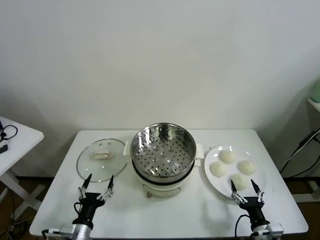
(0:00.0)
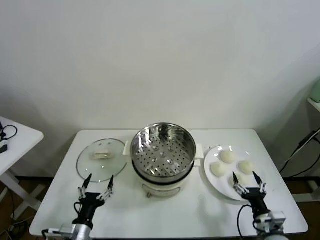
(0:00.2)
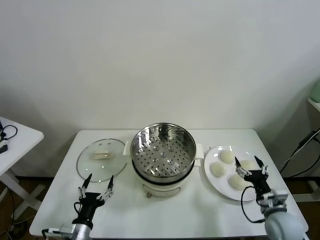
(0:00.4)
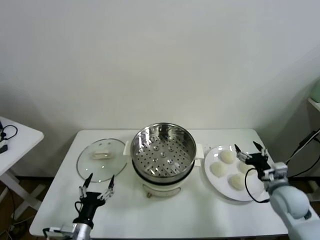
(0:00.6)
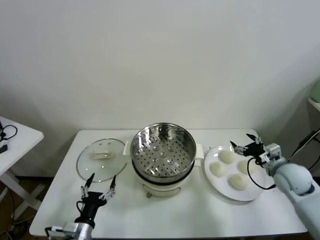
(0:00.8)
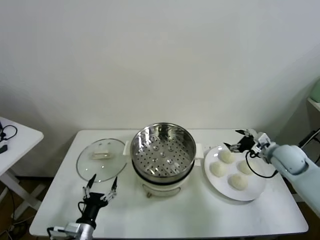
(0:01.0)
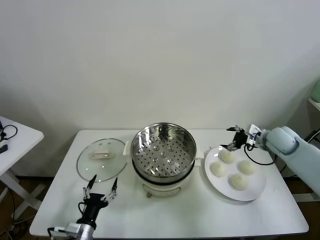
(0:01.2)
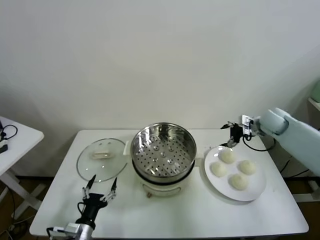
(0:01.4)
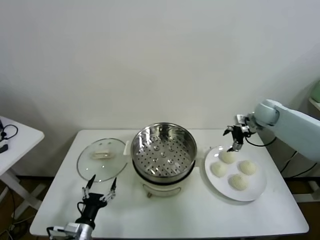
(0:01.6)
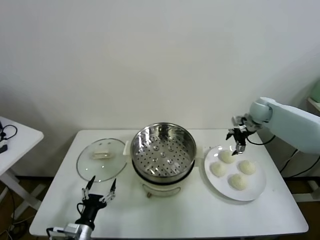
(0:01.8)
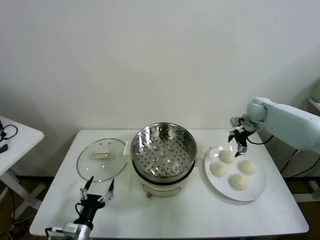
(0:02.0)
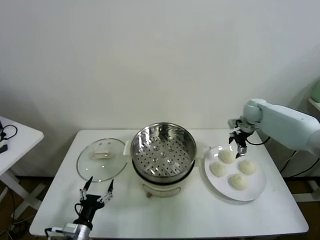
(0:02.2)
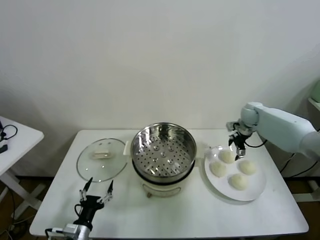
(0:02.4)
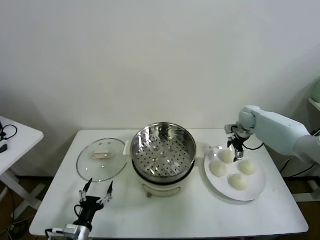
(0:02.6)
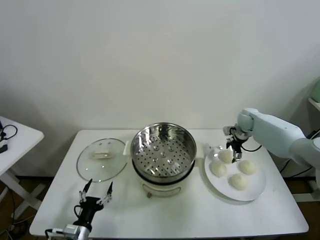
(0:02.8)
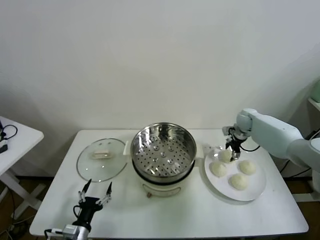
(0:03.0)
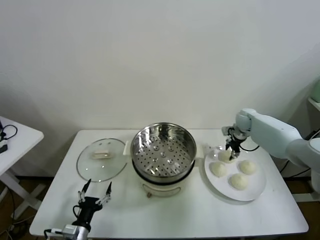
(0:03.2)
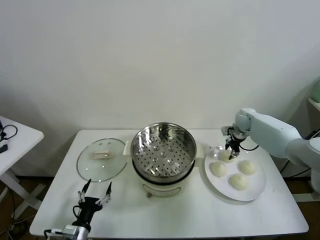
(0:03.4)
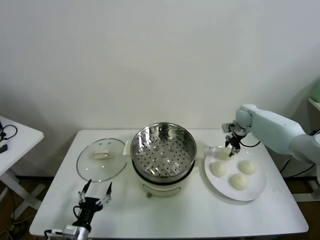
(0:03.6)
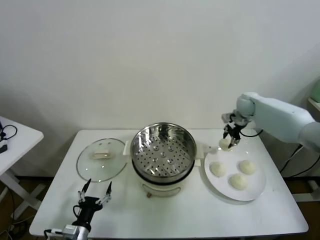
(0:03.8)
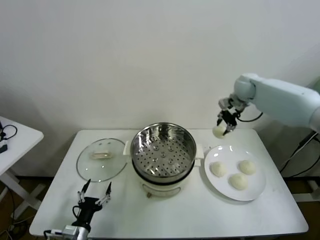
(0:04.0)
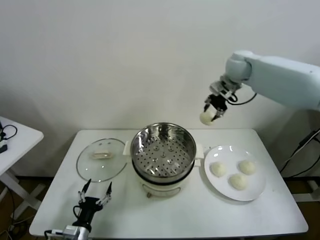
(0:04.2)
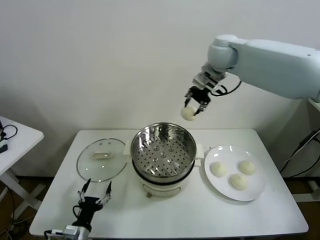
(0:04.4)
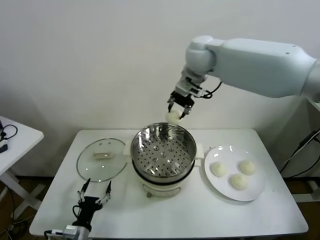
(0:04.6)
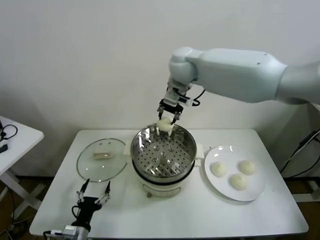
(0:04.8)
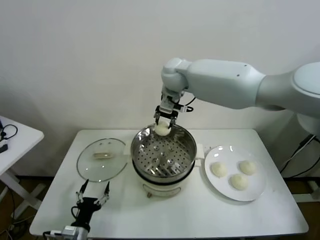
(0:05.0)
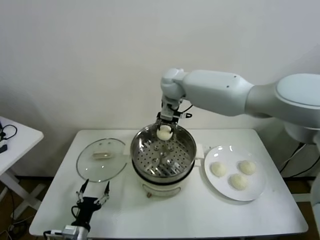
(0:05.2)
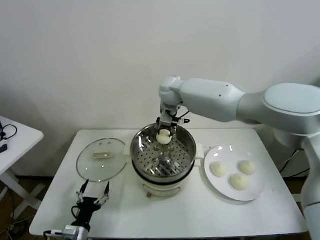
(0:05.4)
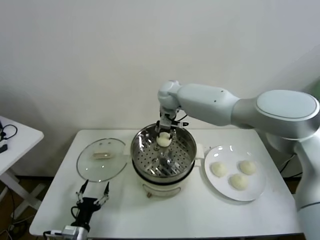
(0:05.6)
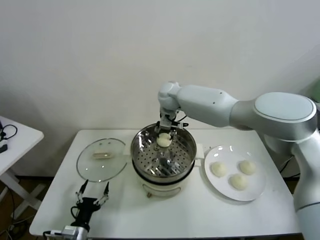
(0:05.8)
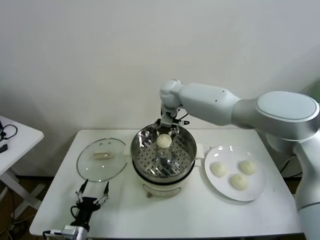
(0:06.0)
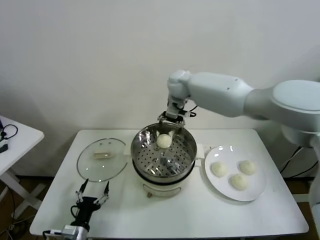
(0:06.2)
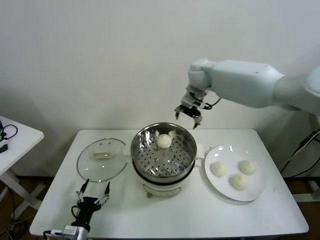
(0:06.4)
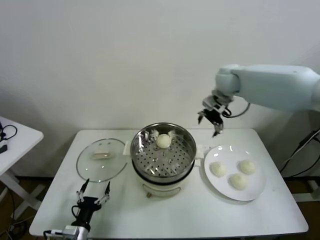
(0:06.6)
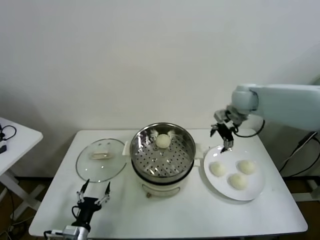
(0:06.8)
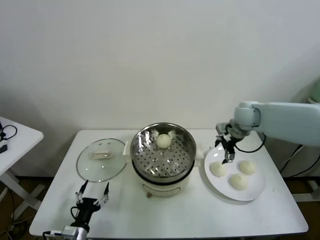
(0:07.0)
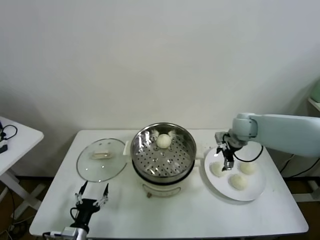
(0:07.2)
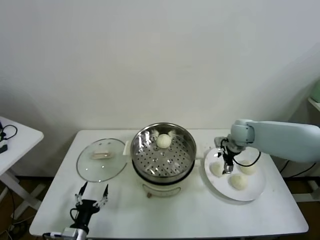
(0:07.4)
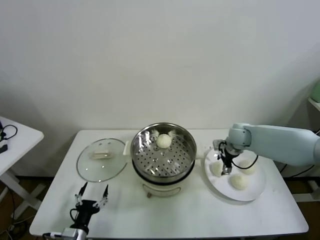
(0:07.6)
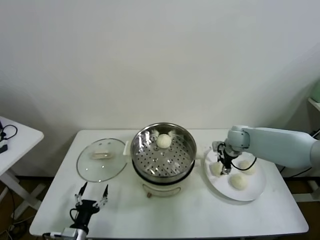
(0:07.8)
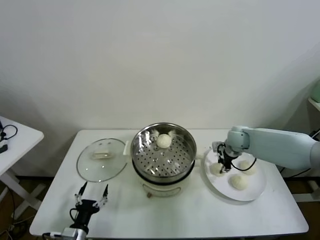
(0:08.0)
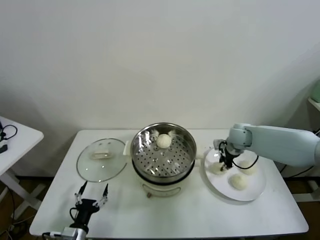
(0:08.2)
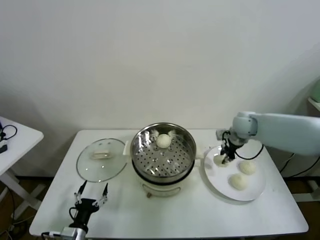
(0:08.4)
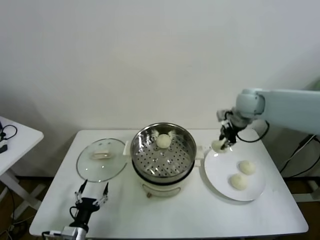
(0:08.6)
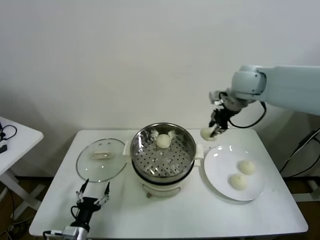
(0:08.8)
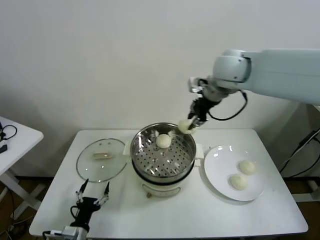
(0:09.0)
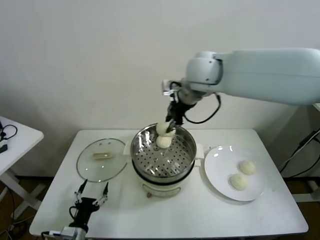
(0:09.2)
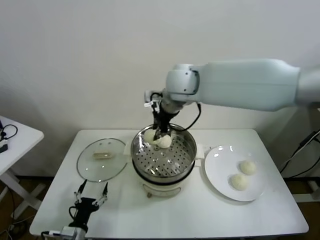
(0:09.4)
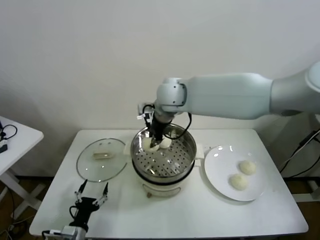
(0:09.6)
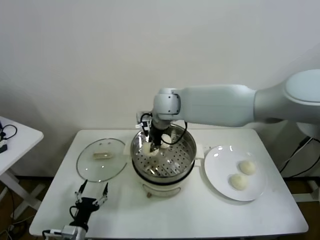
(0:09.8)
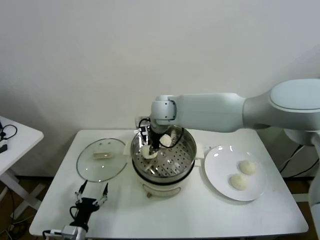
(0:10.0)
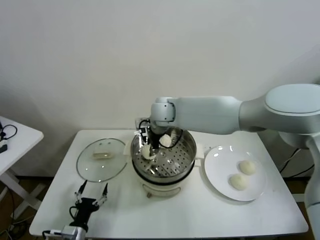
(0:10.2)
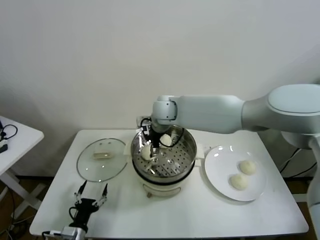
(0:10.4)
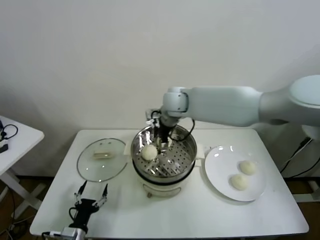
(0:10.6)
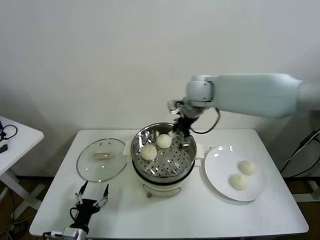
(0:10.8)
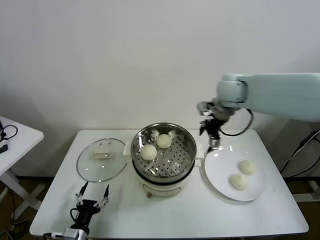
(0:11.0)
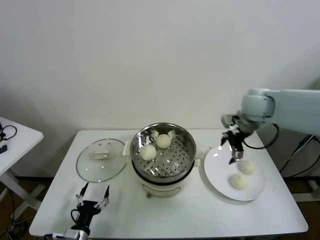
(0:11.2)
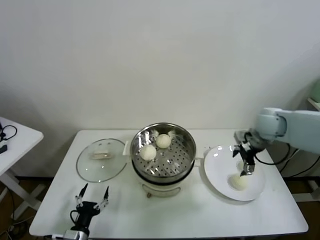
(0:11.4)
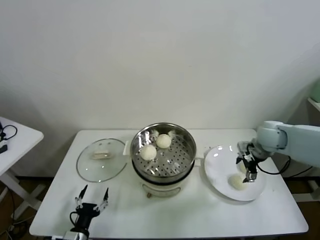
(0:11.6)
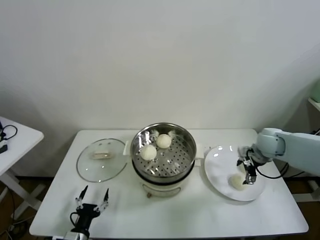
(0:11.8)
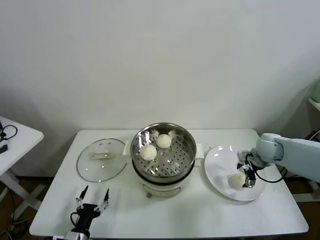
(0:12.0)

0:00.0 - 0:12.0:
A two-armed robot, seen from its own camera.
Task of the whole recording: take steamed baozi put them in steamer.
Step, 0:00.0 - 0:03.0: Grasp the baozi in the plate with right gripper.
Step, 0:03.2 - 0:05.8: Place the baozi on the steamer with right gripper.
Step, 0:06.0 - 0:07.6: Grasp the baozi in the plate with right gripper.
Step, 0:08.0 - 0:10.2: Place the baozi on the steamer with right gripper.
0:01.6 - 0:03.0: The right gripper is displaced downward by approximately 10 cm, and closes up.
0:03.0 - 0:04.4: The right gripper goes about 40 cm upward and to the left.
0:04.4 - 0:06.0: The right gripper moves downward and to the left, roughly 20 cm, and opens up.
0:06.0 - 0:07.6: The right gripper is displaced to the right and downward by some 30 cm.
0:07.6 - 0:09.0: The right gripper goes about 35 cm upward and to the left, and closes.
0:09.0 - 0:10.4: The right gripper travels downward and to the left by roughly 20 cm, and opens up.
0:10.4 - 0:12.0: The right gripper heads to the right, covering about 35 cm.

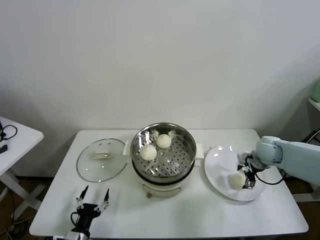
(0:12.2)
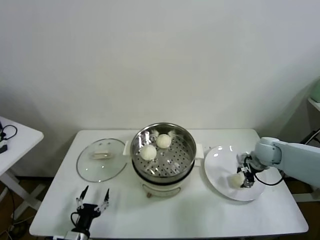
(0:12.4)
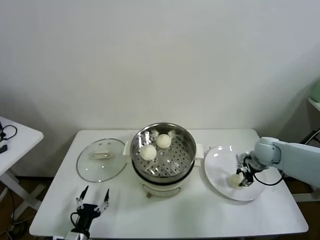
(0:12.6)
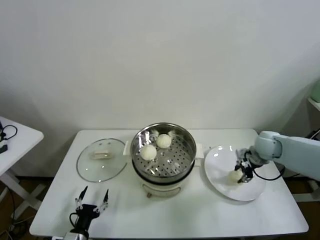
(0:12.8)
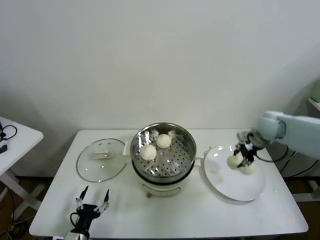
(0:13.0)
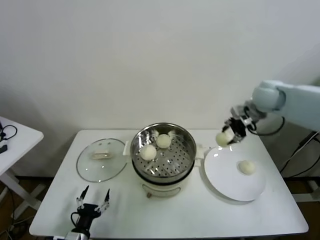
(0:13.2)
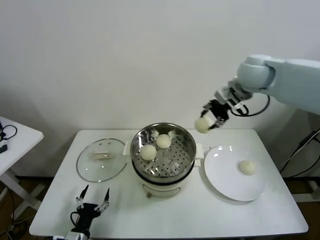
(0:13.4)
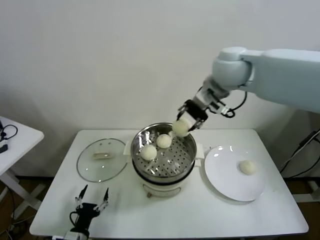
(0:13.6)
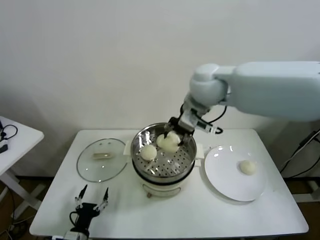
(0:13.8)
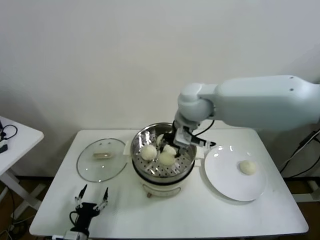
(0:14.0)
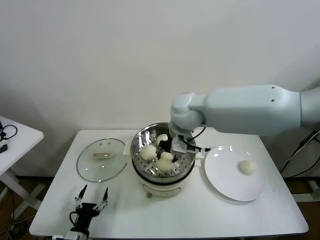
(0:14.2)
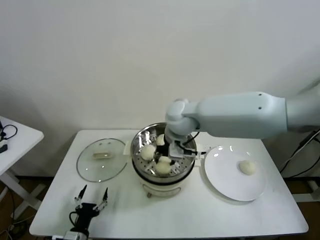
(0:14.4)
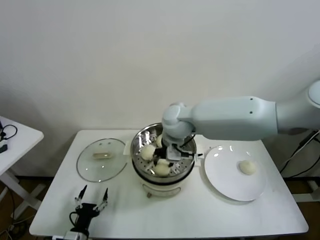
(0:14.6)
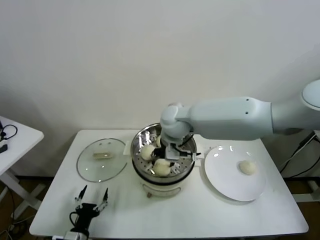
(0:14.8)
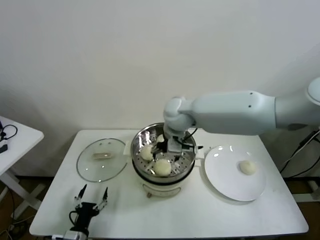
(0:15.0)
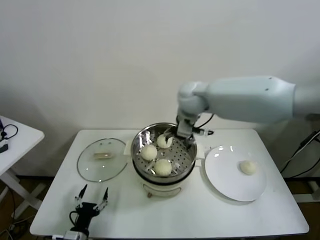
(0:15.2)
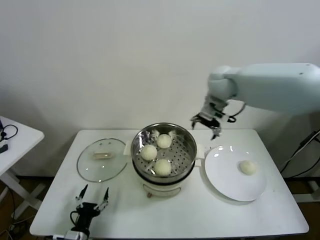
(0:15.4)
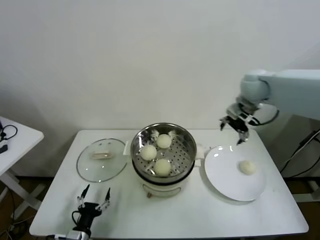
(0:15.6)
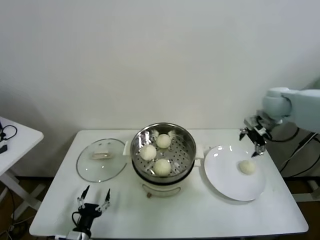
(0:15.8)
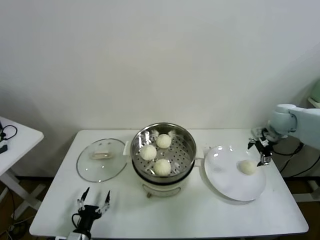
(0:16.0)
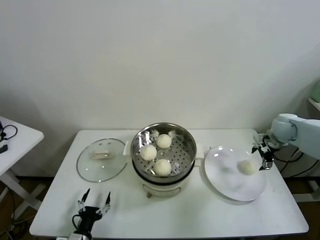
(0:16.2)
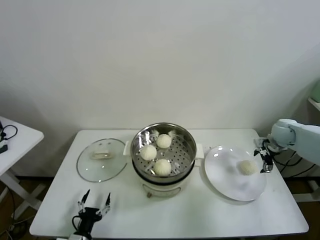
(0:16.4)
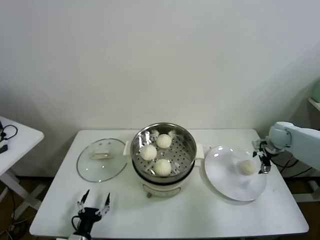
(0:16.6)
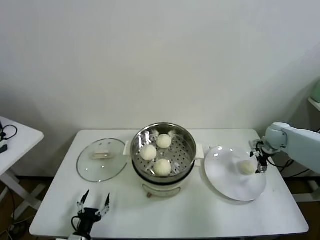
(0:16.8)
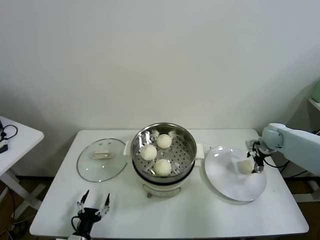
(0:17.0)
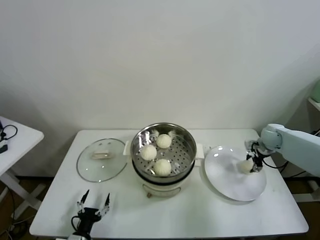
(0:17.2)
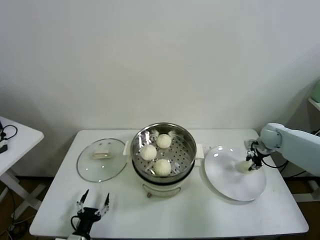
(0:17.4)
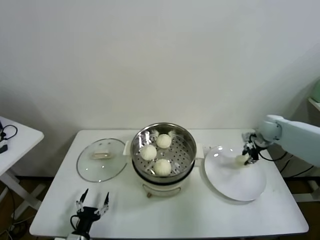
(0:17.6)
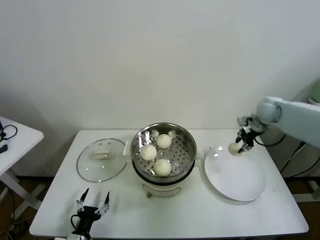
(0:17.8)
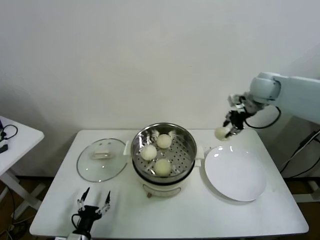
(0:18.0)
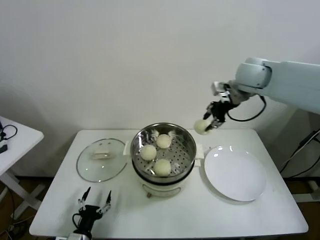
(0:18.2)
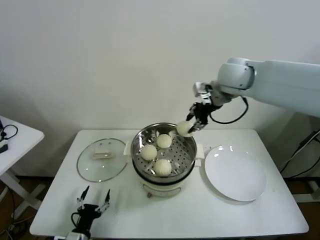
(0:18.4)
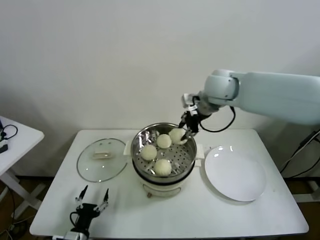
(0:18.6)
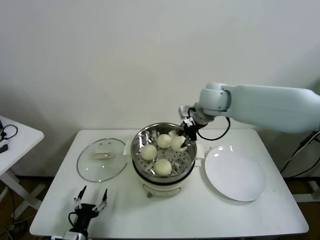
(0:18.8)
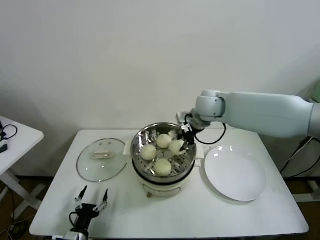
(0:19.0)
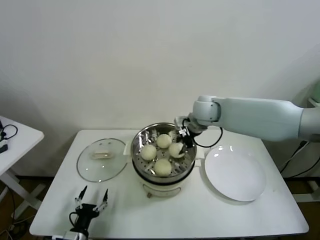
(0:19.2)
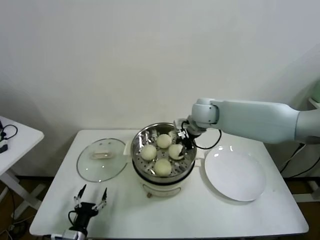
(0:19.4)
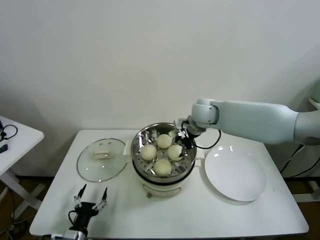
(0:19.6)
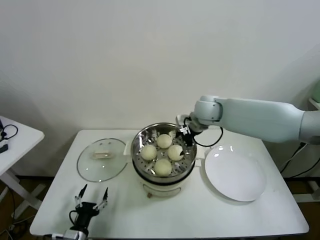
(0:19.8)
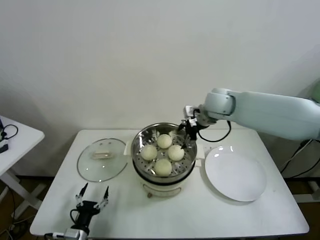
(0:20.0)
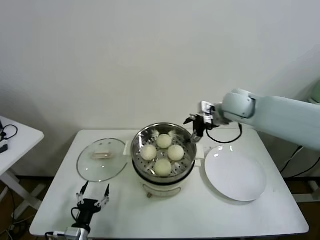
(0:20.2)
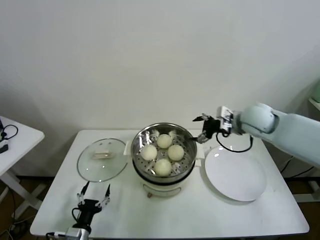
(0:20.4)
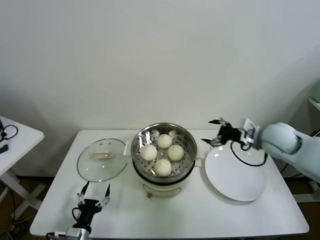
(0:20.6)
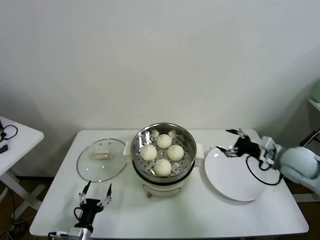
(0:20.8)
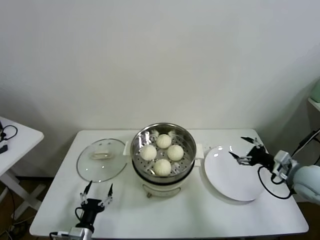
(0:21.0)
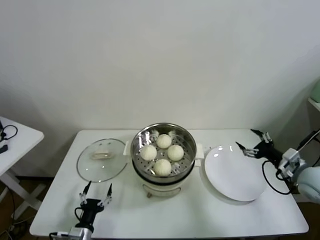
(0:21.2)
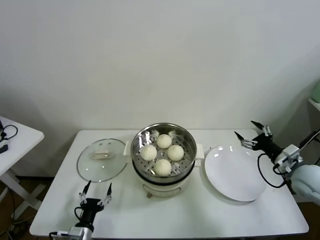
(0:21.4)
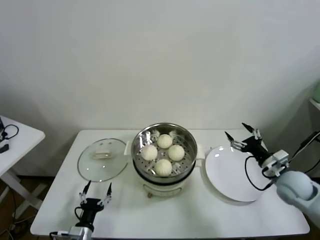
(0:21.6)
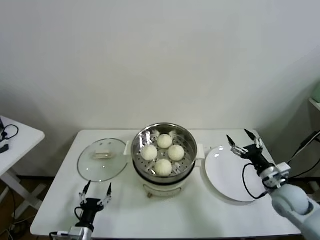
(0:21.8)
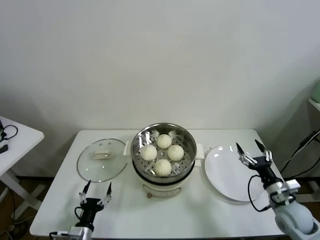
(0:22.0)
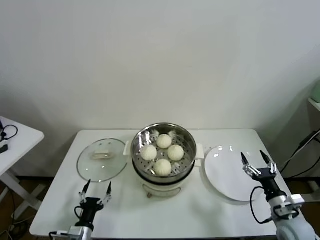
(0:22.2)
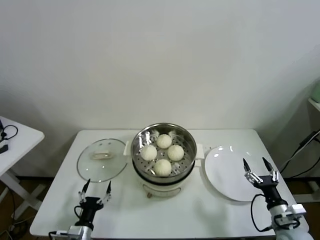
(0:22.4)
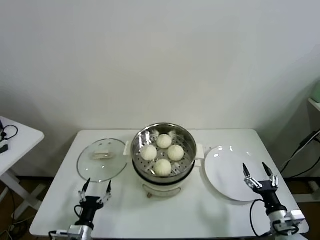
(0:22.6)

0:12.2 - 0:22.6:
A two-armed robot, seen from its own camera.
Task of the whole recording: take steamed baozi put them in steamer.
Step, 0:12.6 - 0:14.8: Place the baozi on the steamer with right gripper.
Step, 0:15.0 - 0:17.0: Grasp the baozi in the plate with right gripper.
Step, 0:17.2 - 0:19.6: Place the baozi on the steamer with right gripper.
0:12.2 - 0:13.6: The right gripper heads upward and to the left, covering approximately 40 cm, and closes up.
0:13.6 - 0:15.2: The right gripper shifts some 10 cm downward and to the left, and opens its fingers.
0:15.2 - 0:16.6: The right gripper is displaced to the right and downward by approximately 40 cm.
0:16.6 - 0:18.2: The right gripper moves upward and to the left, about 30 cm, and closes its fingers.
0:18.2 - 0:19.6: The right gripper travels downward and to the left by approximately 20 cm, and opens its fingers.
0:19.6 - 0:21.2: The right gripper travels to the right and backward by about 35 cm.
0:21.2 - 0:22.6: The right gripper goes some 20 cm downward and backward.
